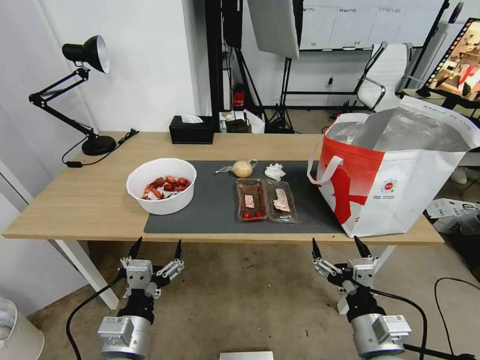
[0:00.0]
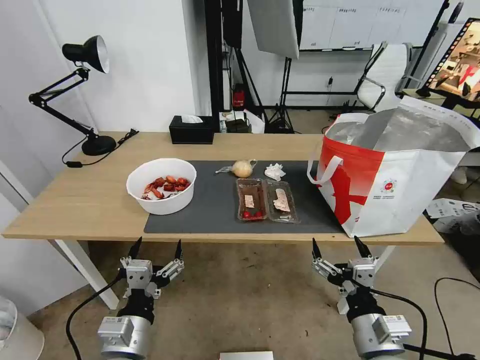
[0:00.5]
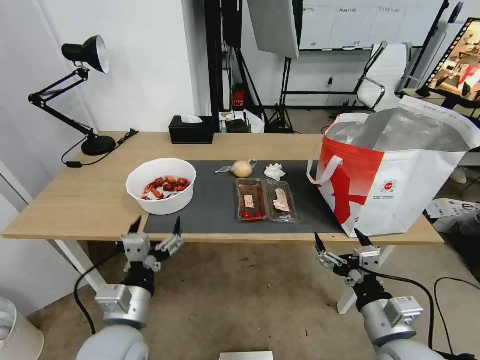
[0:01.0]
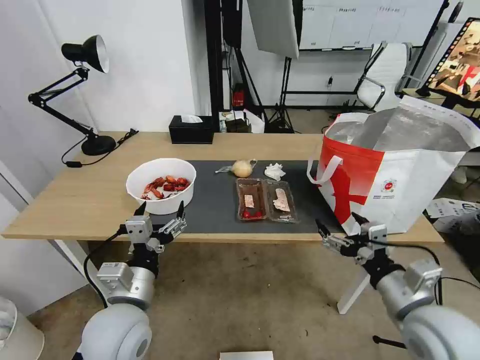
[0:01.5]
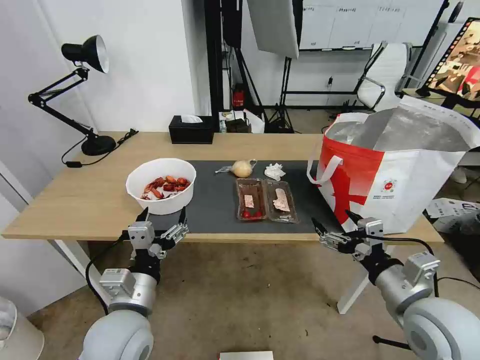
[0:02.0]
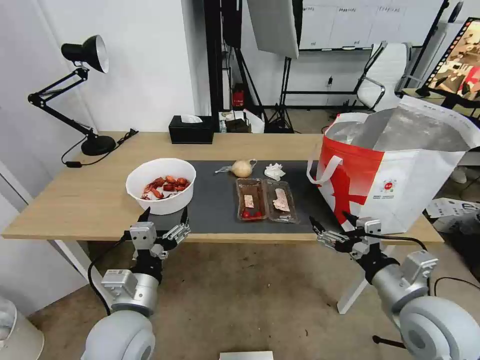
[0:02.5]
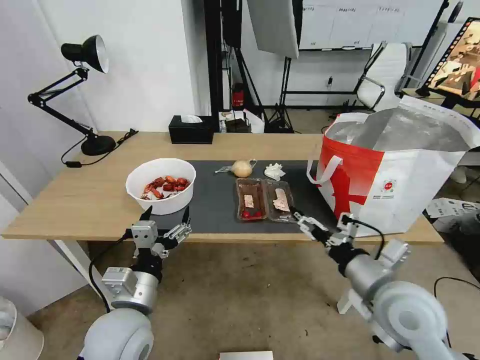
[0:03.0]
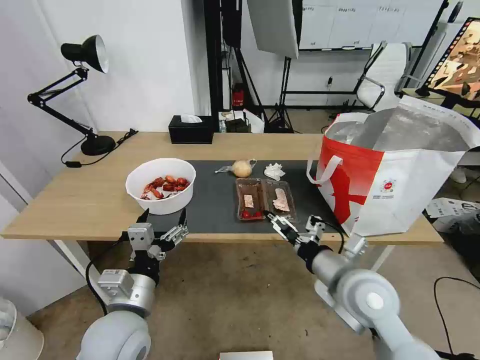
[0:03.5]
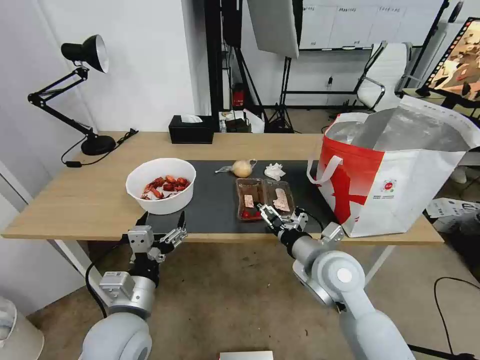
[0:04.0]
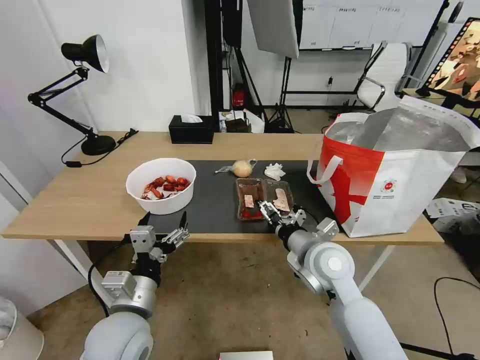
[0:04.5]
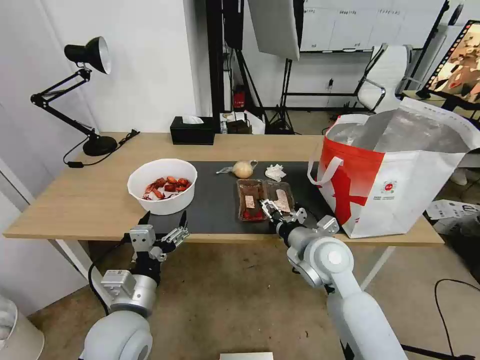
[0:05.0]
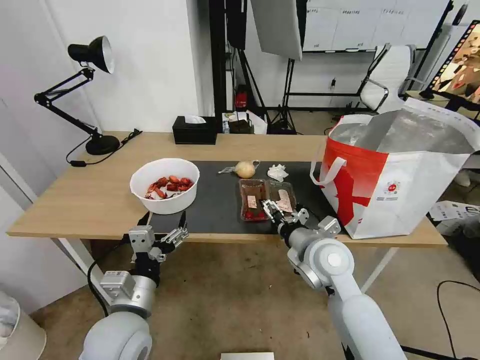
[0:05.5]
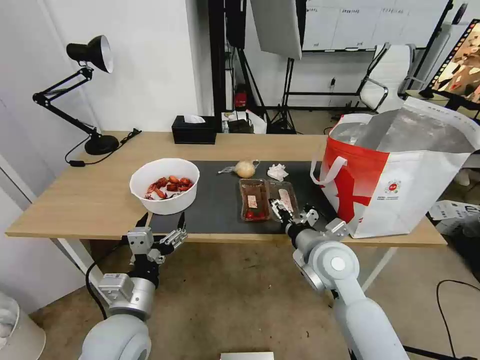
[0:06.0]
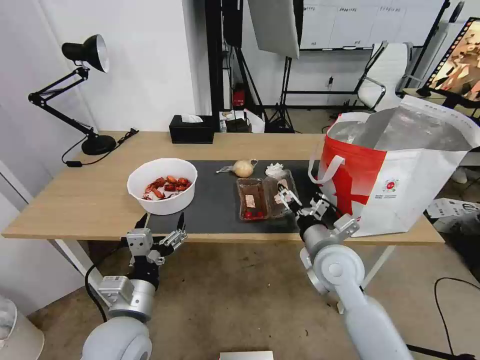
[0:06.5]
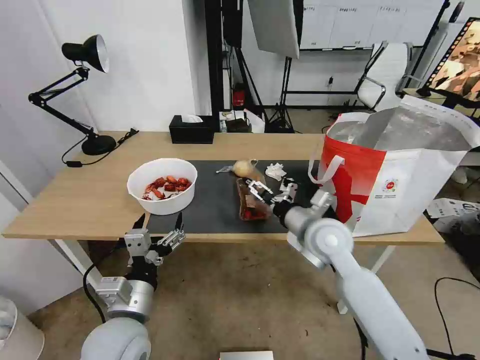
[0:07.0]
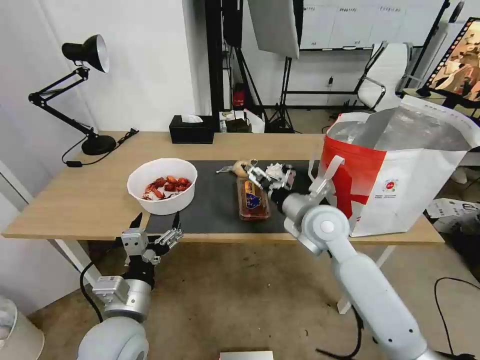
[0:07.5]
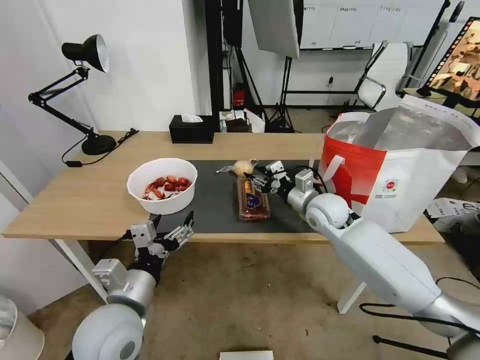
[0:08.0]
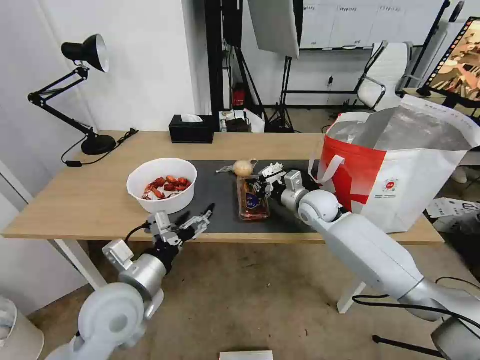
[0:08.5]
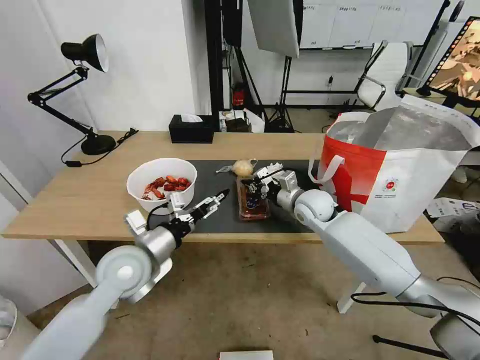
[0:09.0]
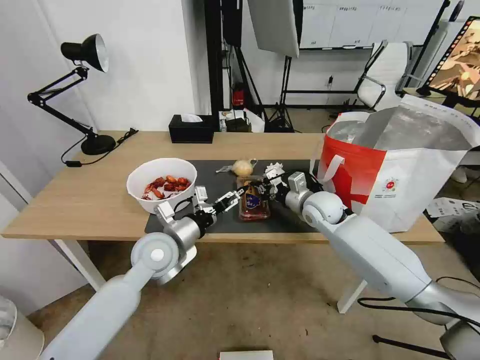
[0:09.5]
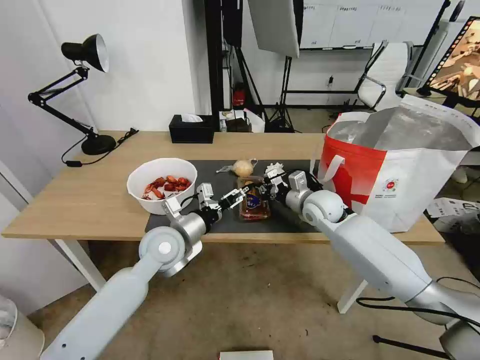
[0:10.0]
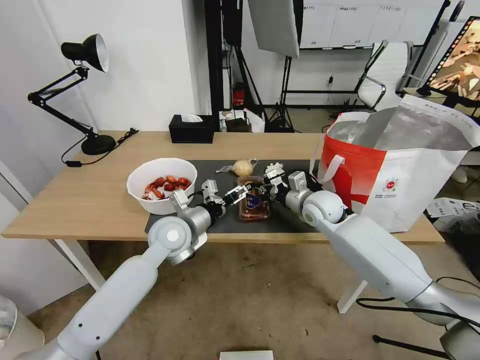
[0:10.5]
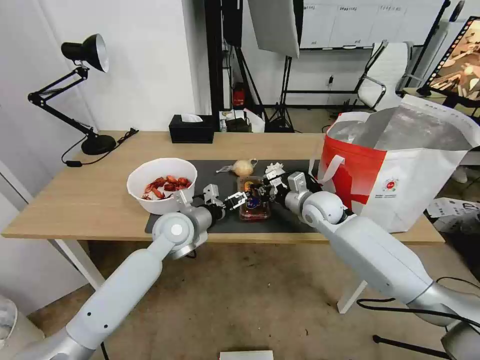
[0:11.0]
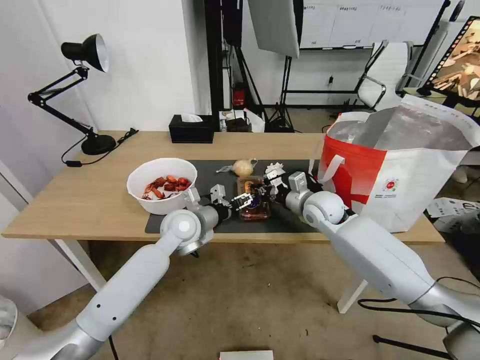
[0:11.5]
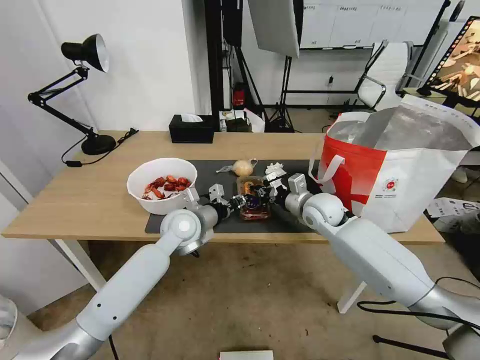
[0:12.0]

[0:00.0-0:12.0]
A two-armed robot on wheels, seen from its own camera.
Task of the whole recording: Pick up the trash from the table and place it into the takeout bag.
0:02.0 to 0:04.0: The right gripper travels to the left and forward by roughly 15 cm.
0:04.0 to 0:06.0: The grippers make only small movements.
0:06.0 to 0:08.0: The right gripper heads forward, covering approximately 10 cm, and closes up.
0:08.0 to 0:10.0: The left gripper moves forward, about 15 cm; the right gripper shifts roughly 5 cm forward, and closes its fingers.
0:10.0 to 0:12.0: The left gripper shifts roughly 5 cm forward, and closes up.

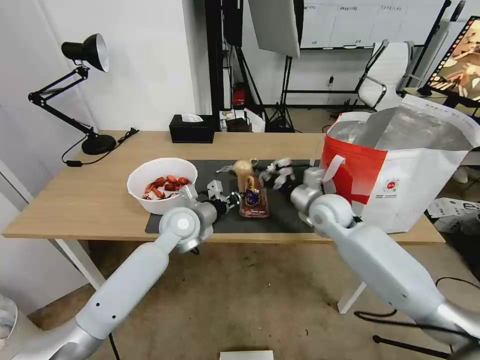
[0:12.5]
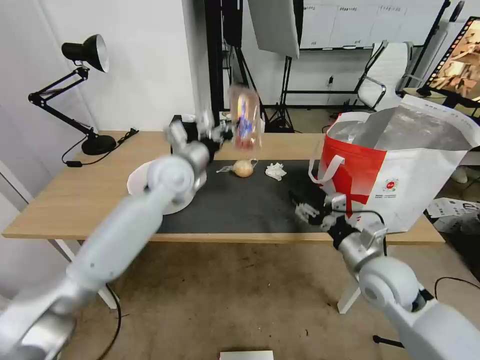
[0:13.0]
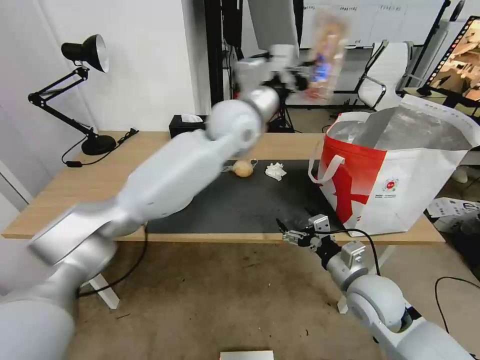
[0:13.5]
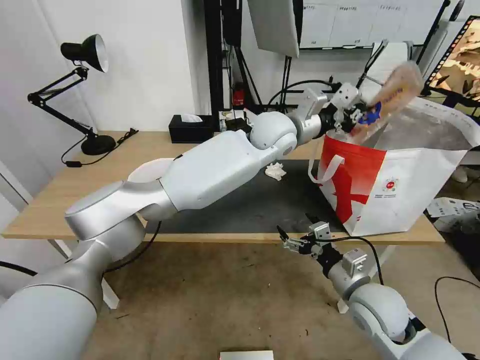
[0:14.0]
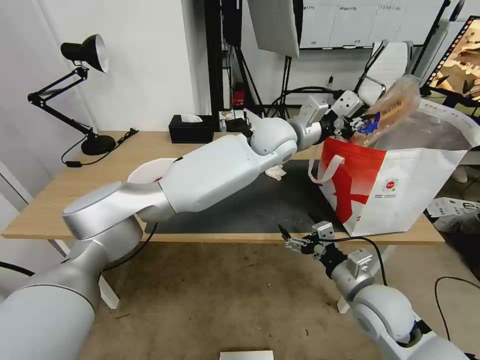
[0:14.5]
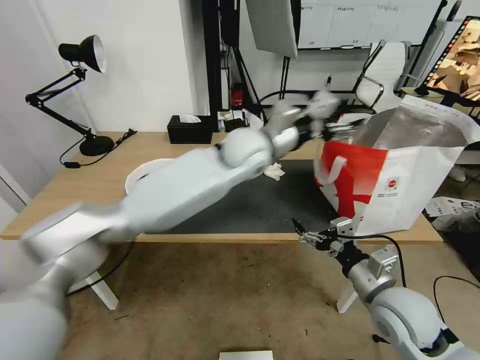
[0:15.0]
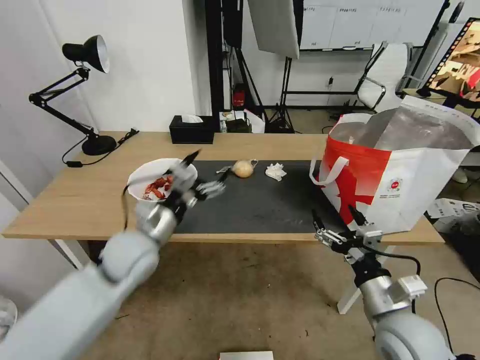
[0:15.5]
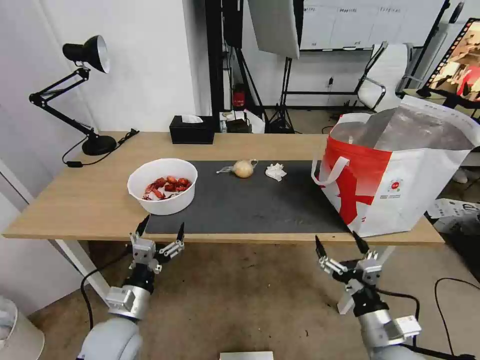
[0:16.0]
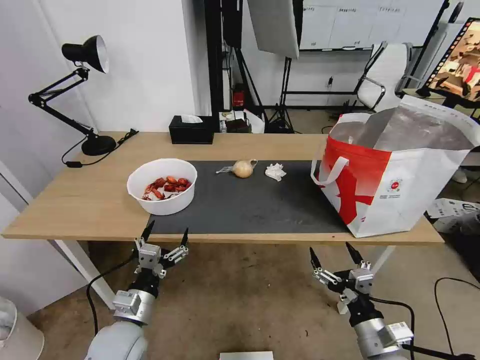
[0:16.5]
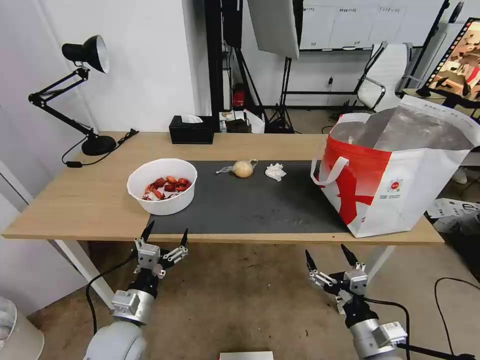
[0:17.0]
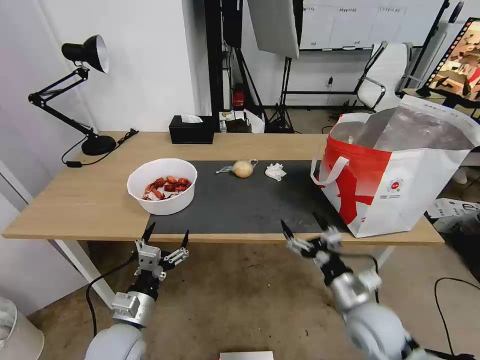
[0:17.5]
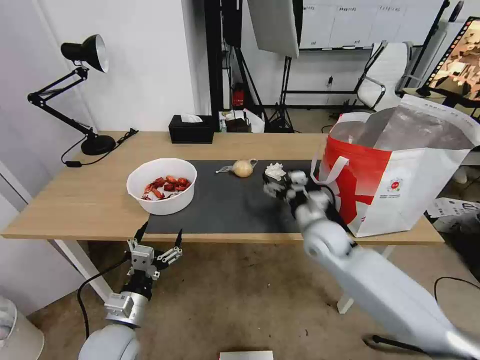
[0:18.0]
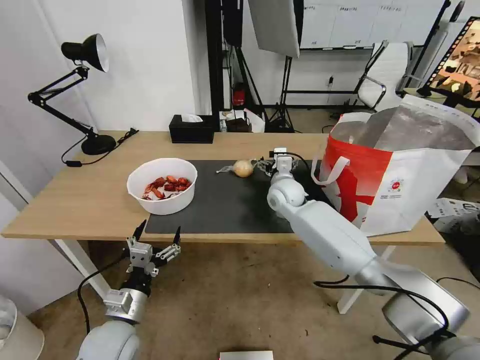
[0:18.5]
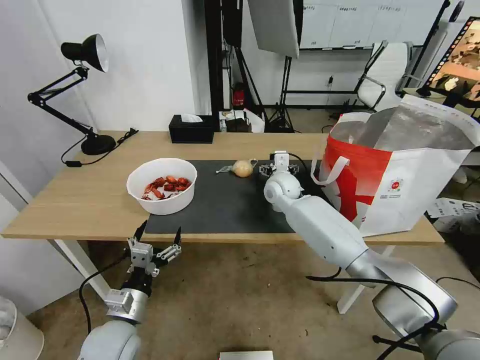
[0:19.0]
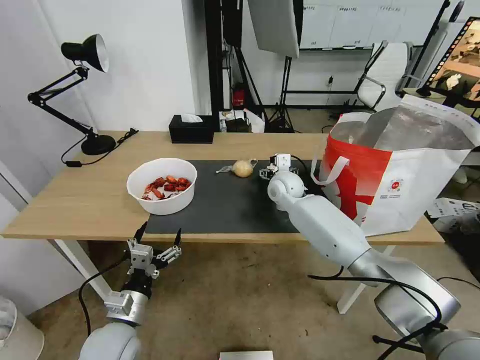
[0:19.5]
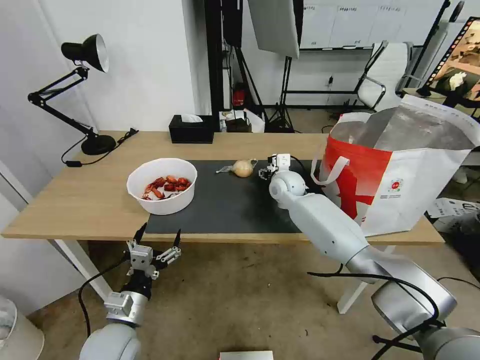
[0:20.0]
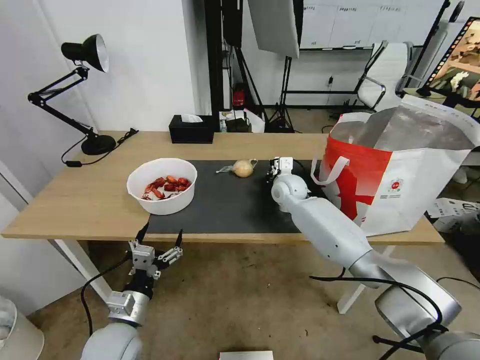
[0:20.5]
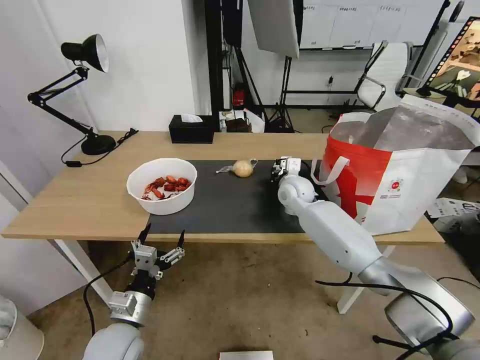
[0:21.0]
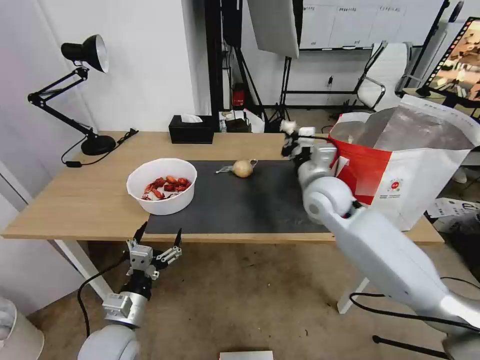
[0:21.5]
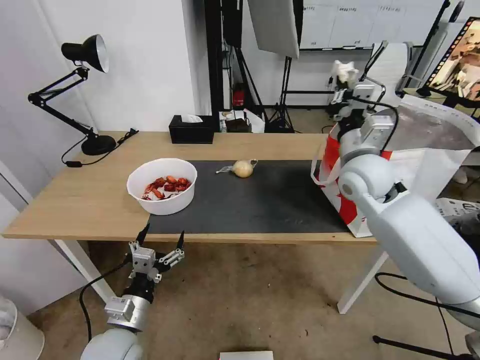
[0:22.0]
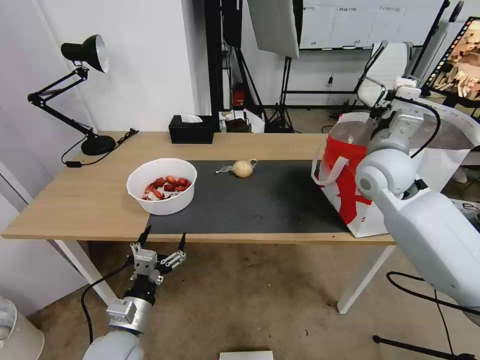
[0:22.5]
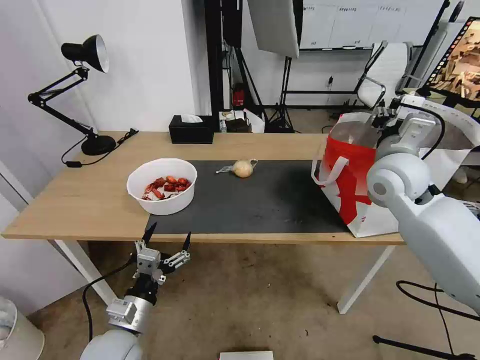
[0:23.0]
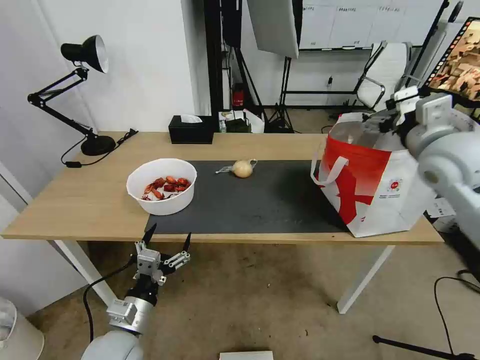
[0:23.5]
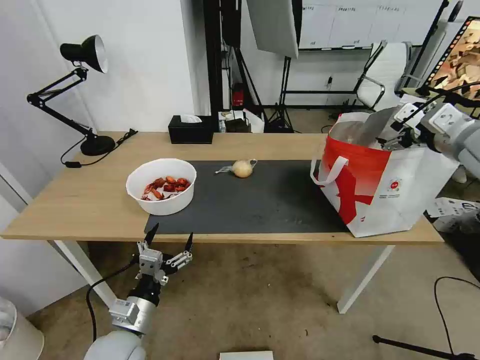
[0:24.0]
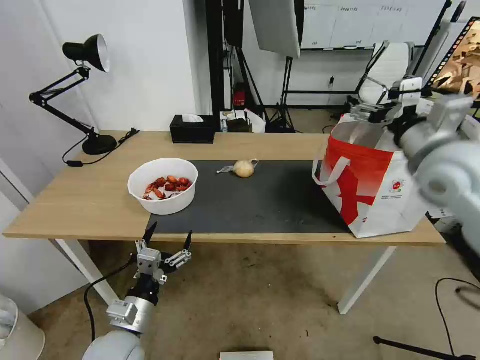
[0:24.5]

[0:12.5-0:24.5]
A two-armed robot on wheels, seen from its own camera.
Task of the whole recording: Pick up the trash from the table and place it into the takeout bag.
0:12.5 to 0:14.5: The left gripper travels to the right, upward and forward by some 30 cm; the right gripper moves backward, some 20 cm, and opens.
0:14.5 to 0:16.5: The left gripper heads backward, to the left and downward, covering approximately 50 cm, and opens. Meanwhile the right gripper heads backward and downward, covering about 15 cm.
0:16.5 to 0:18.5: The right gripper shifts roughly 40 cm forward.
0:18.5 to 0:20.5: The right gripper closes.
0:20.5 to 0:22.5: The right gripper shifts some 25 cm upward, to the right and backward.
0:22.5 to 0:24.5: The right gripper moves to the right, backward and upward, approximately 10 cm, and opens its fingers.

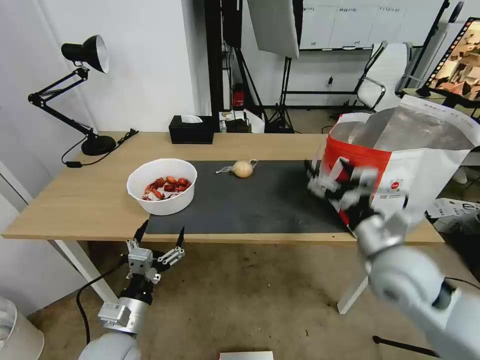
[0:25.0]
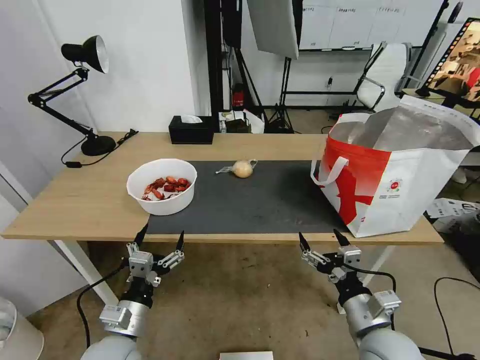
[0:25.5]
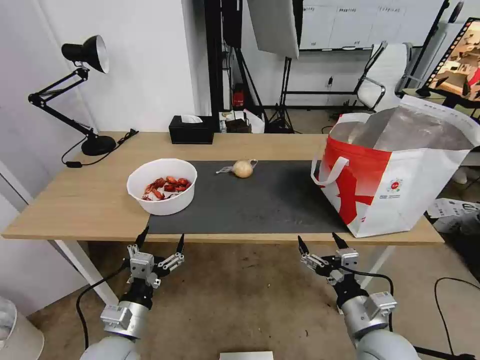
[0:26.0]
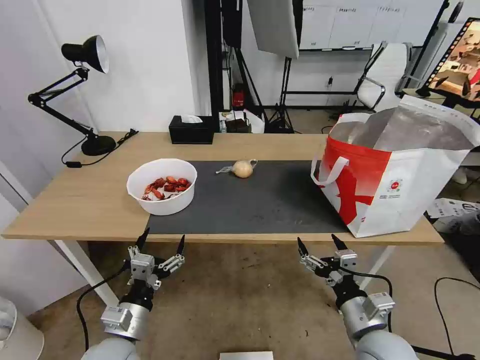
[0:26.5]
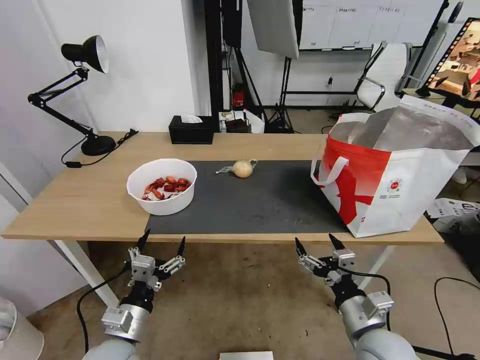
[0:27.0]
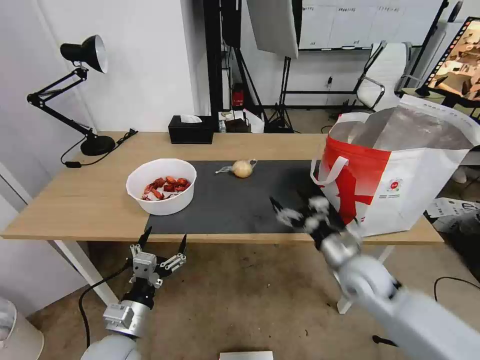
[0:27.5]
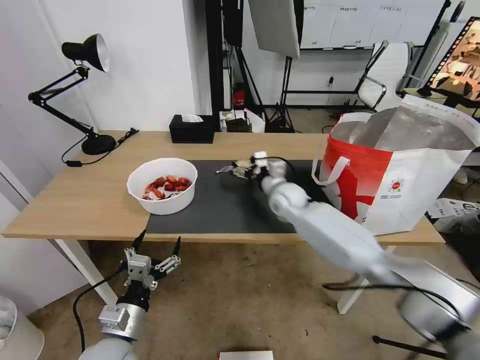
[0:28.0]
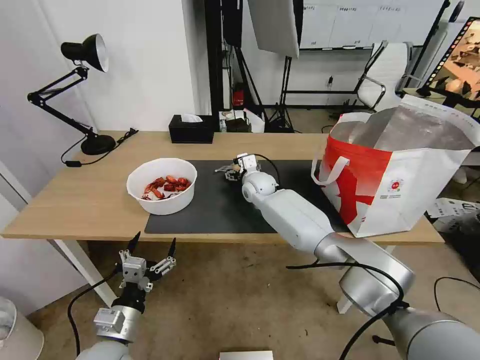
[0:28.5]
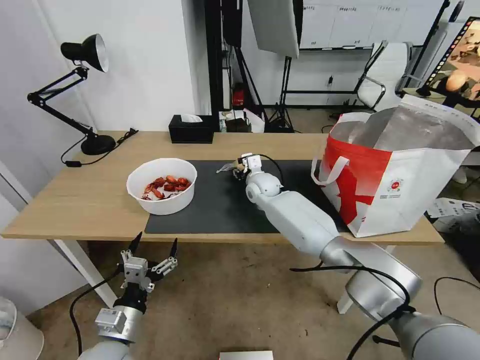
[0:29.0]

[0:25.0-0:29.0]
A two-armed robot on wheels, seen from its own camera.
Task of the whole recording: Pick up the trash from the table and place it into the takeout bag.
0:25.0 to 0:27.0: The right gripper heads downward and backward, covering roughly 15 cm.
0:27.0 to 0:29.0: The right gripper is displaced forward and to the left by some 40 cm, and closes its fingers.
